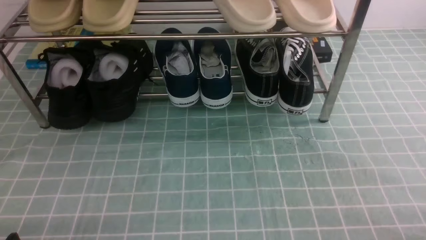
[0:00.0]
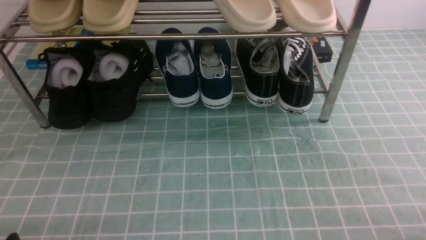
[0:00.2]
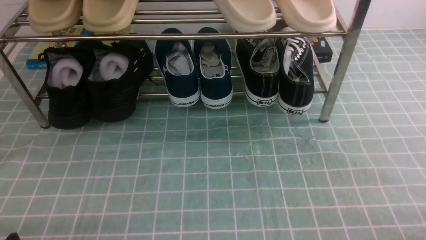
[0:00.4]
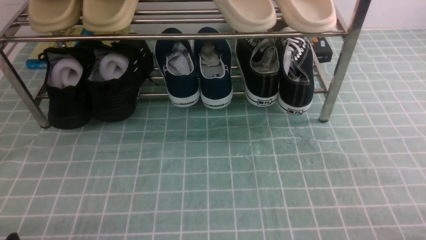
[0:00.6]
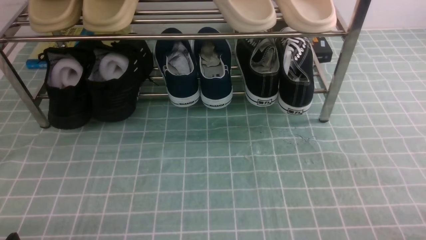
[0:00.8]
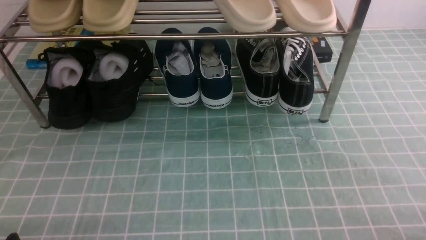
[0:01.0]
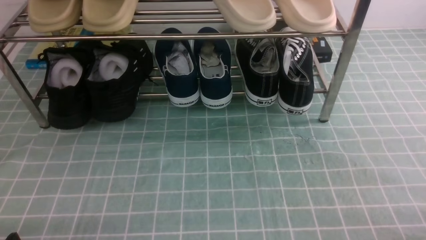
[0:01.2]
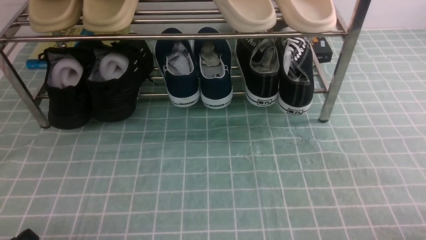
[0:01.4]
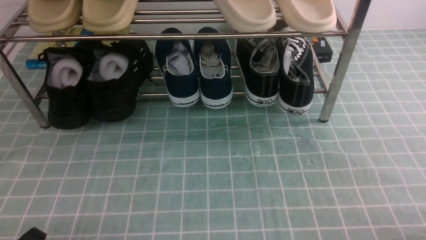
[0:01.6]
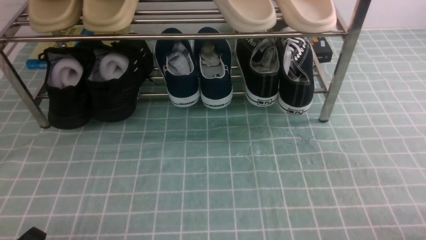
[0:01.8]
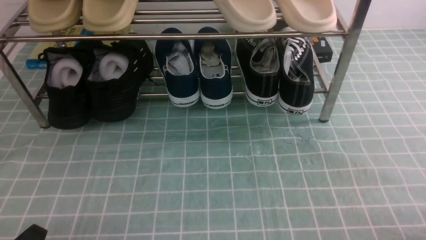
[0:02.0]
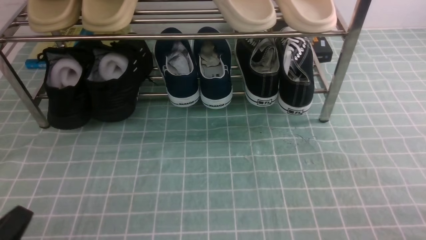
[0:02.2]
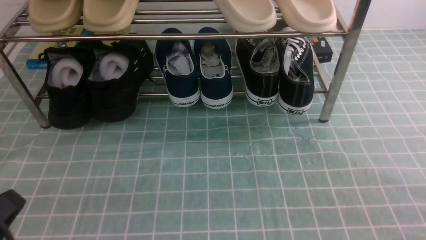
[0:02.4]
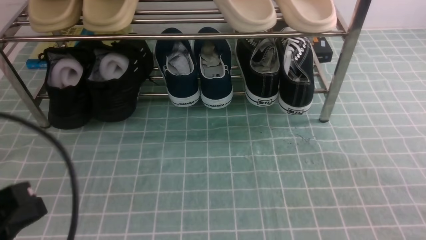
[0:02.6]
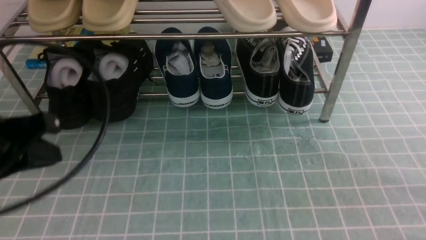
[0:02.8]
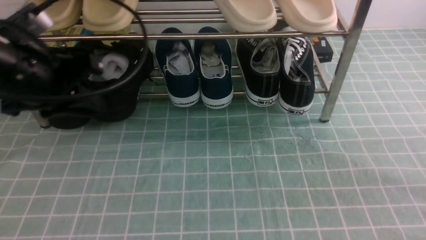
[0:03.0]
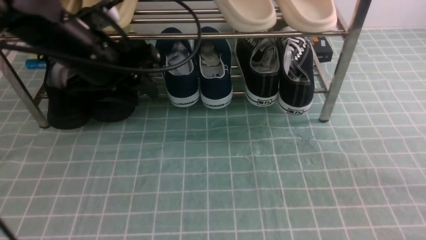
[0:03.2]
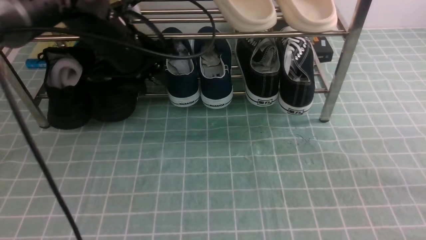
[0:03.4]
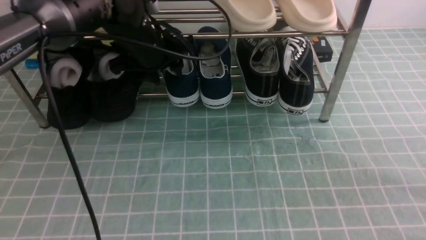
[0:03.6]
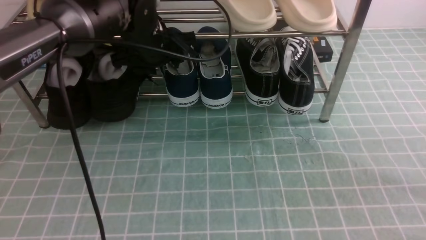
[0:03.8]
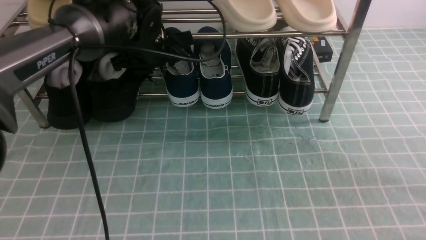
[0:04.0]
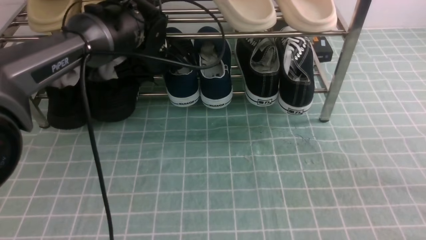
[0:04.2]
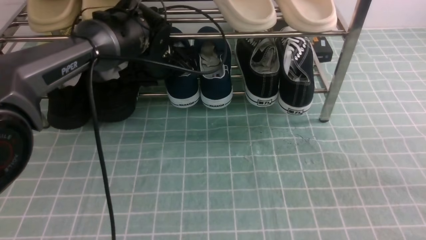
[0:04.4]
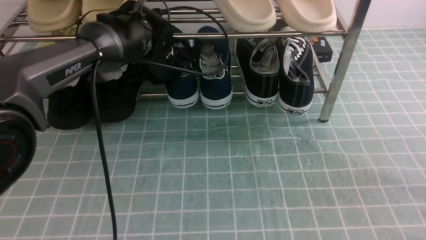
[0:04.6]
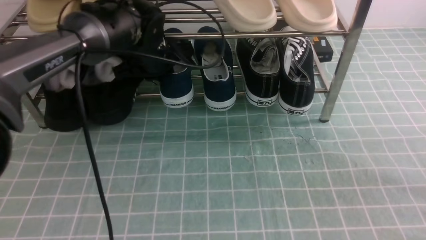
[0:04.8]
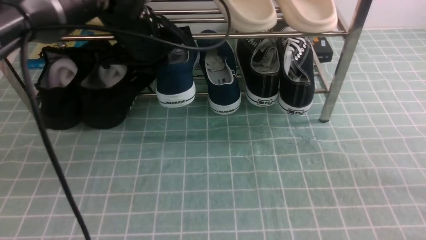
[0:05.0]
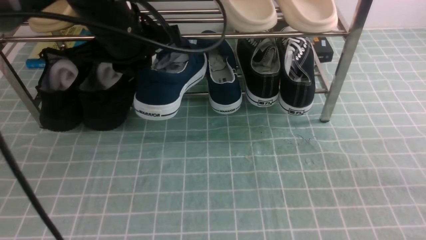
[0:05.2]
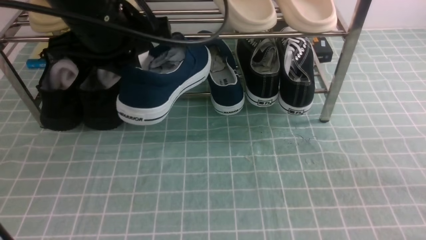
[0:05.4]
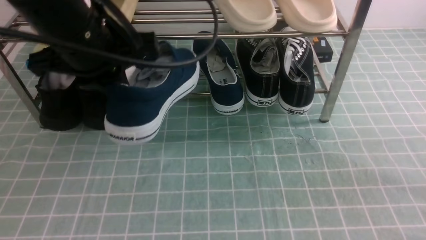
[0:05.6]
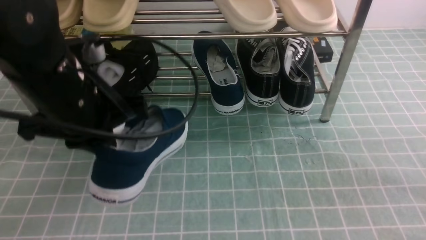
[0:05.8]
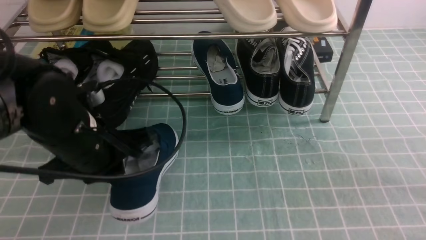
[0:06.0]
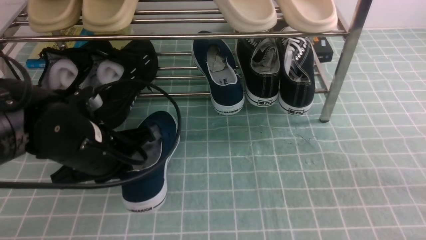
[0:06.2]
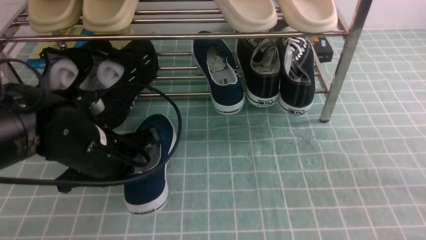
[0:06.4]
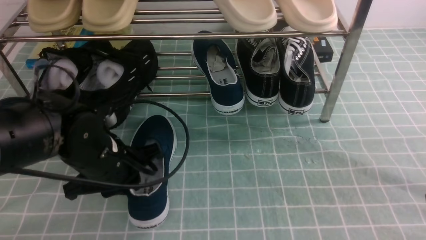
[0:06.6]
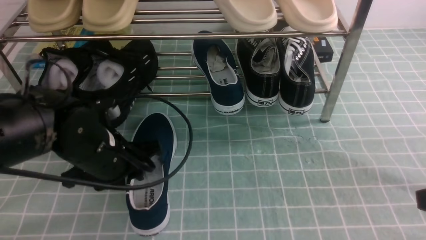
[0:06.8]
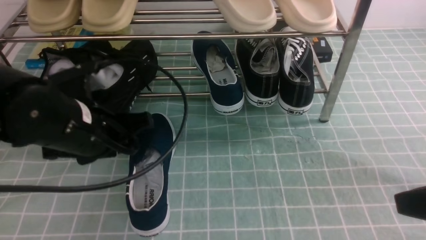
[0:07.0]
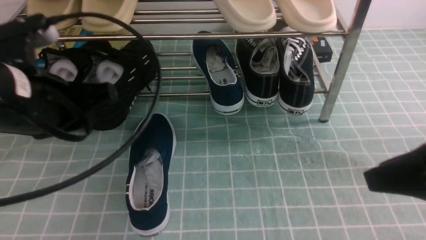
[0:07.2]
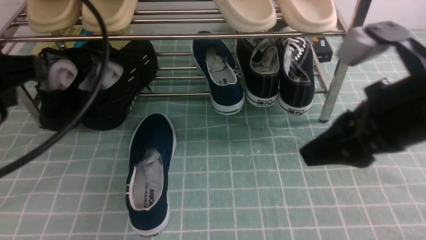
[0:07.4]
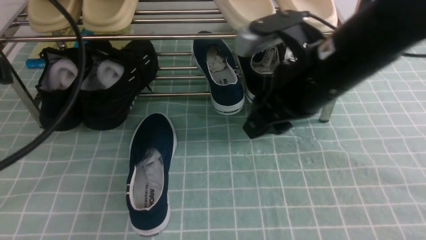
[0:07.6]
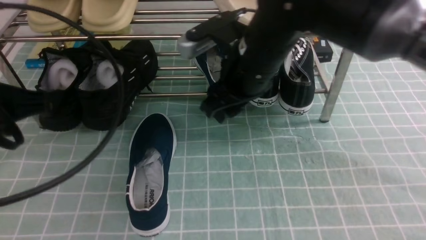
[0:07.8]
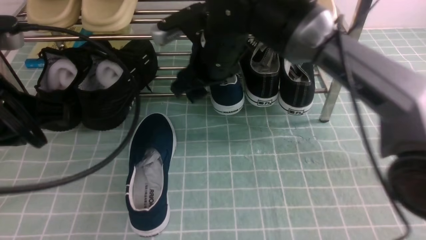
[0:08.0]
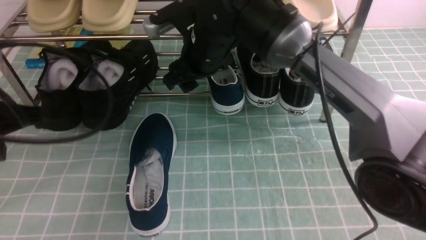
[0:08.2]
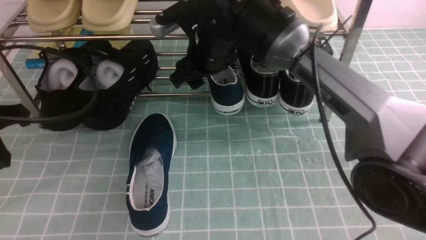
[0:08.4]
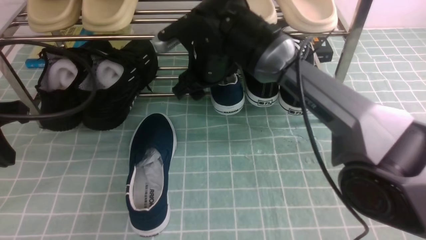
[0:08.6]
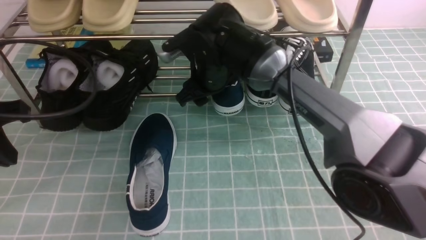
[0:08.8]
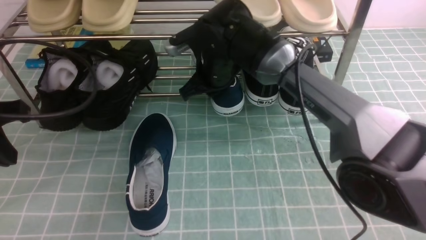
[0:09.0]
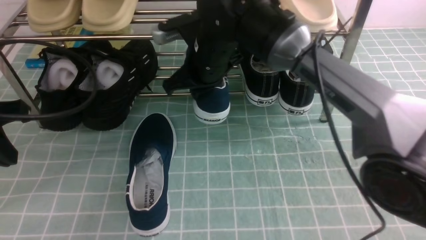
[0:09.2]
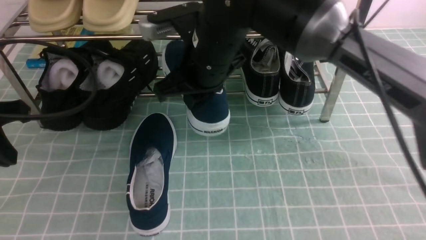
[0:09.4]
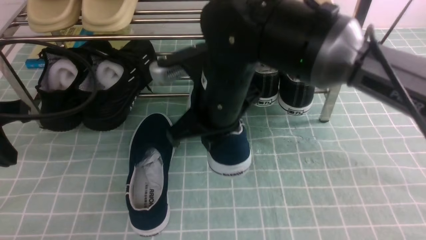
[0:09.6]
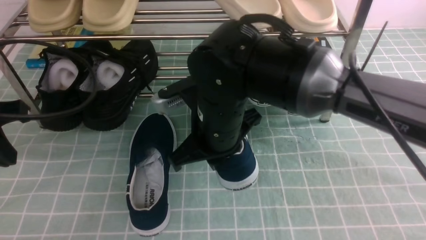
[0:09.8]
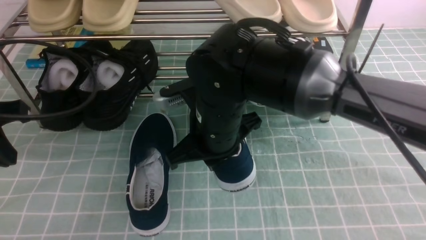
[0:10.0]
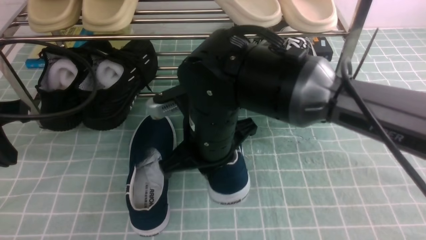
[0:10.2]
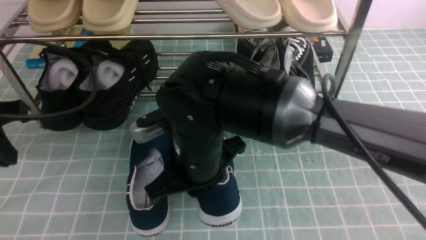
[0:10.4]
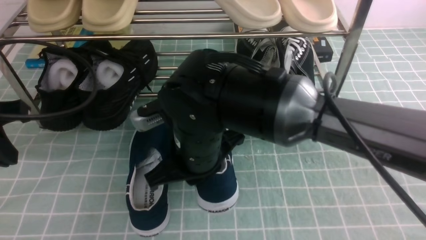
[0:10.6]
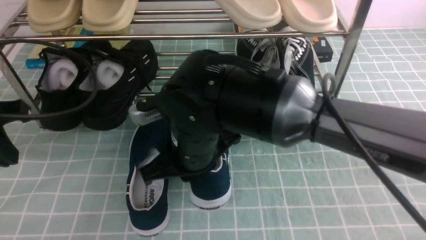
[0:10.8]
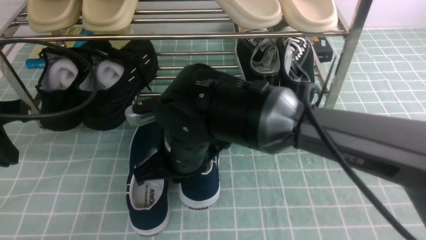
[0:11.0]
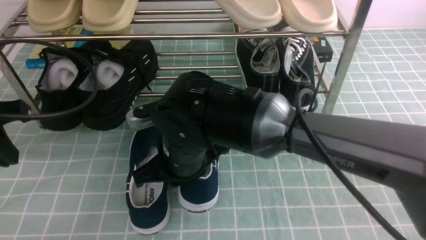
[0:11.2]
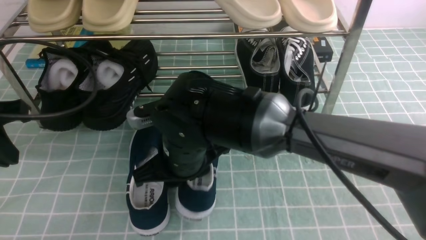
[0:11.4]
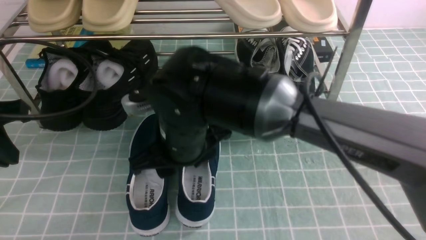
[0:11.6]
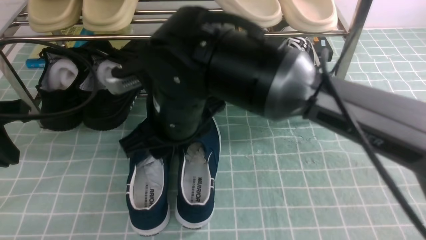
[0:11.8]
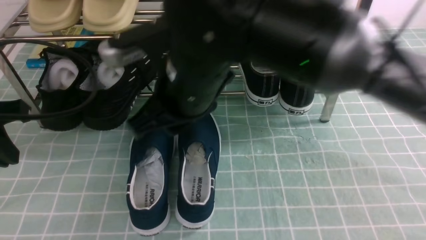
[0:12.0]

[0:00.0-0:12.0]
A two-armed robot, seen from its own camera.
Step, 0:00.0 to 0:04.6: use the left arm to clamp a shoe in the middle of the shoe rack.
Step, 0:04.8 to 0:07.0: Use your left arm to remove the clamped shoe from the shoe rack and put it down.
Step, 0:07.2 to 0:08.8: use the right arm to clamp a shoe in the middle of the shoe rack.
Step, 0:09.2 to 0:11.6: use the right arm to take out the clamped shoe from the shoe rack and put it down.
0:01.6 to 0:03.0: The right gripper is displaced upward and forward by some 15 cm, and closes. The left gripper moves forward and upward, some 30 cm, and closes and opens again.
0:03.0 to 0:04.4: The left gripper shifts approximately 20 cm forward, to the right and downward.
0:04.4 to 0:06.0: The left gripper travels backward by roughly 20 cm, and closes its fingers.
0:06.0 to 0:07.6: The right gripper goes some 25 cm to the left and forward, and opens its fingers. Meanwhile the left gripper heads upward, backward and to the left, covering about 15 cm, and opens, then closes again.
0:07.6 to 0:09.0: The left gripper goes some 10 cm downward, to the left and forward. The right gripper goes approximately 20 cm forward, to the left and downward, and closes its fingers.
0:09.0 to 0:10.4: The right gripper moves backward, about 15 cm.
0:10.4 to 0:12.0: The right gripper heads upward, covering roughly 10 cm.

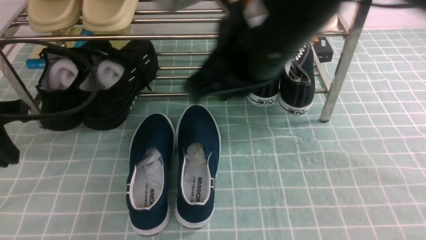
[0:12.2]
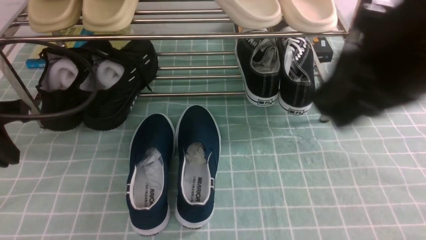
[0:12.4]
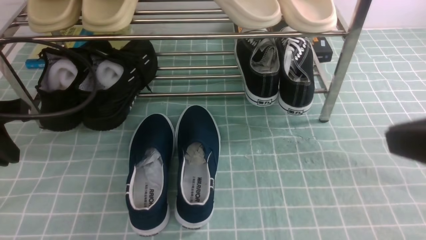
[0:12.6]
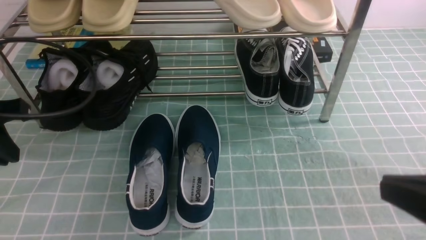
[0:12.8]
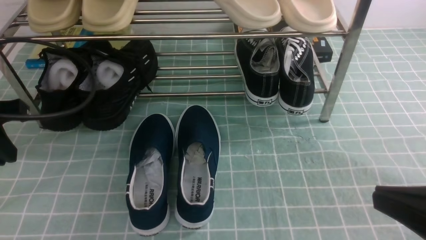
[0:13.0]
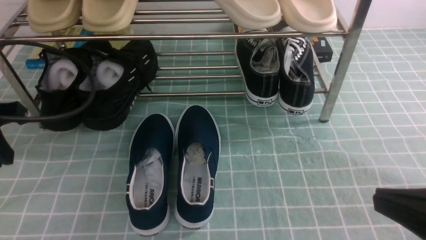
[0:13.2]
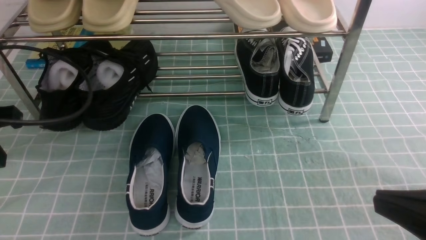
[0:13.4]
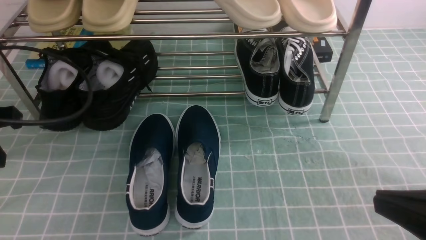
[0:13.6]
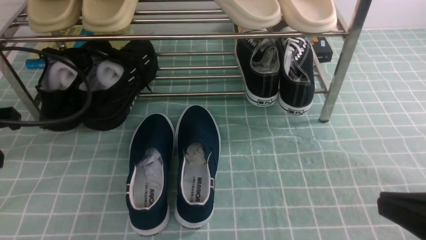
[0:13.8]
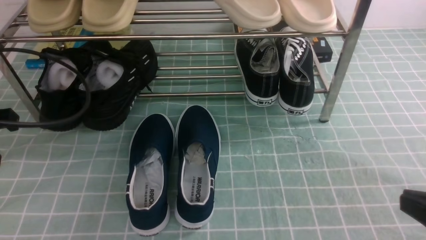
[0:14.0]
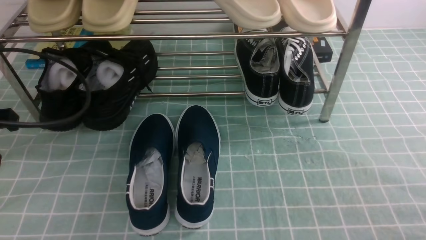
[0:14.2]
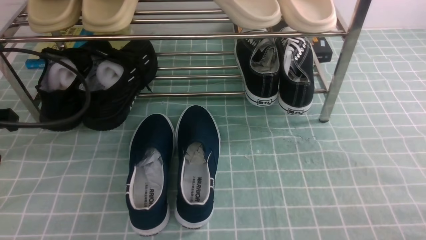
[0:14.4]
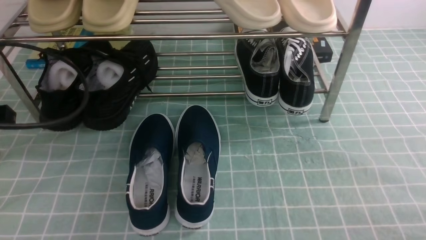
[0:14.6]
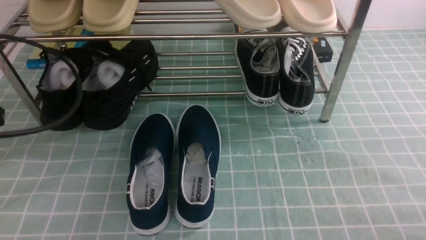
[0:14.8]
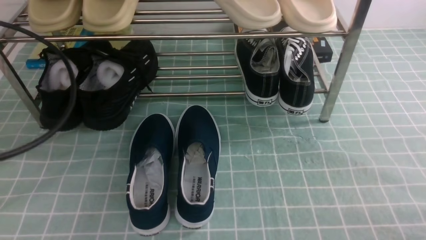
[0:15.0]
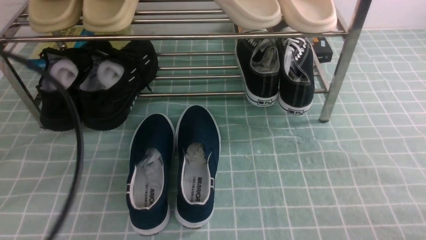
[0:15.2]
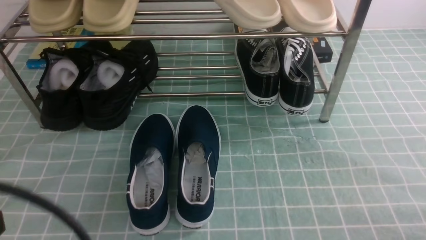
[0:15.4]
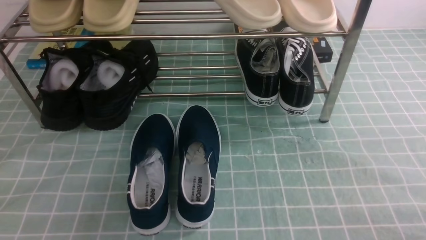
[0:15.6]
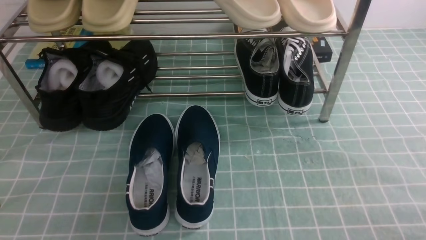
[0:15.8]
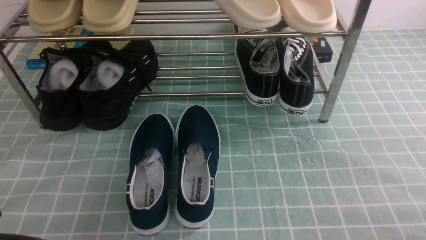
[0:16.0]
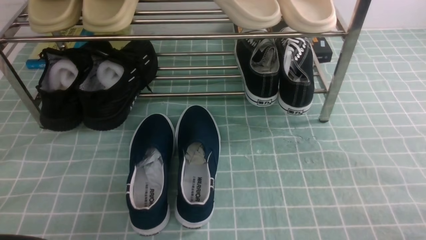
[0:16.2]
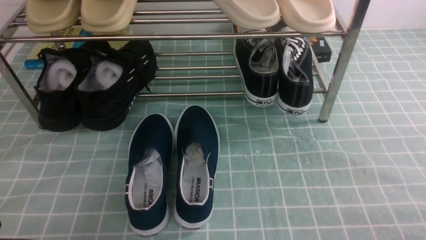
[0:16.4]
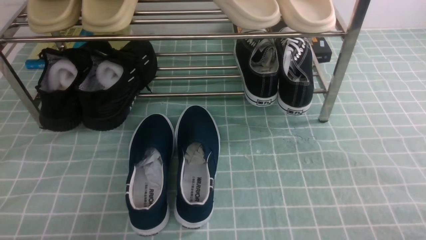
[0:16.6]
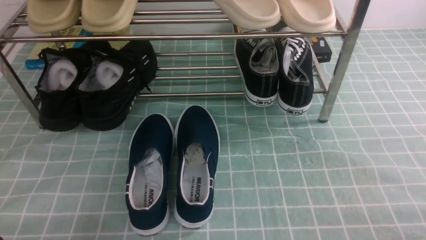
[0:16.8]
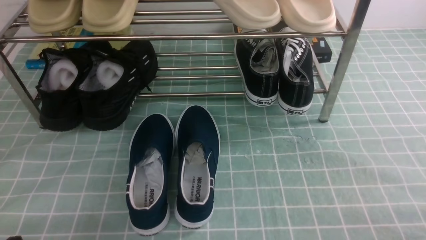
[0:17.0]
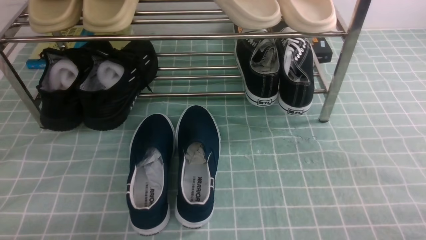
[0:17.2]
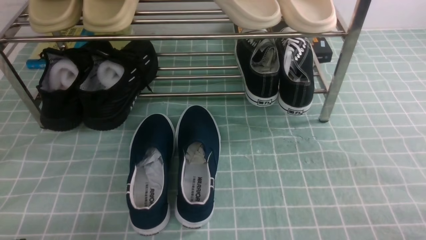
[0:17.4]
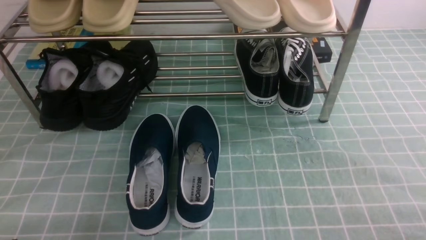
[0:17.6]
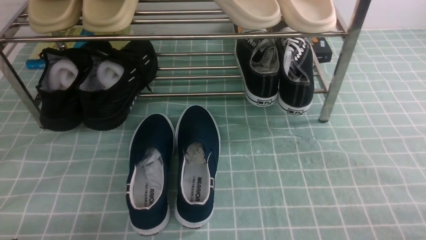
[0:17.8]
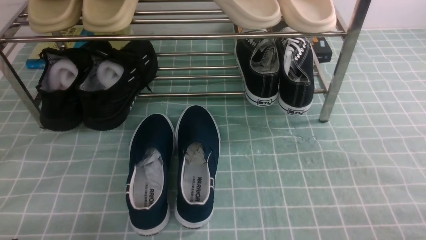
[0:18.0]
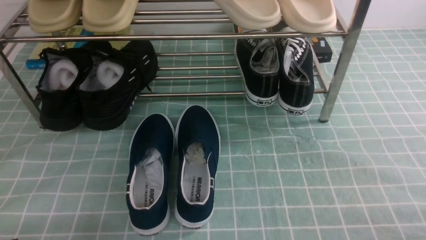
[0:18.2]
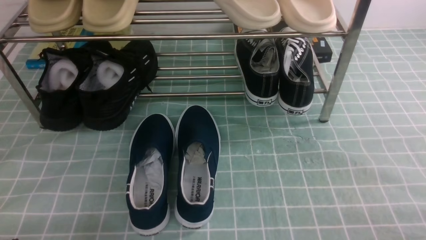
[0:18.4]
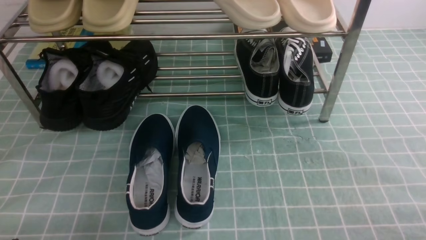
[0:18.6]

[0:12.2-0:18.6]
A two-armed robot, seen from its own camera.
0:12.2 to 0:13.8: The right gripper goes some 25 cm to the right, backward and downward.
0:13.8 to 0:15.4: The right gripper travels downward and to the right by some 15 cm; the left gripper moves backward, about 20 cm.
0:15.4 to 0:17.0: The left gripper goes about 15 cm downward.
0:17.0 to 0:18.6: Both grippers stay about where they are.
